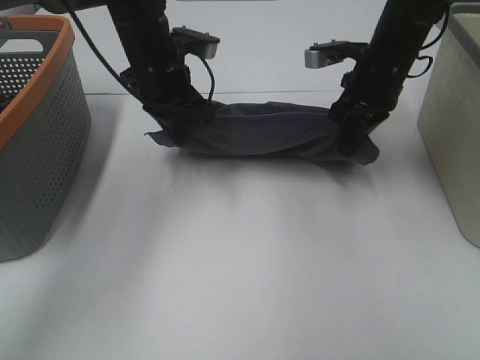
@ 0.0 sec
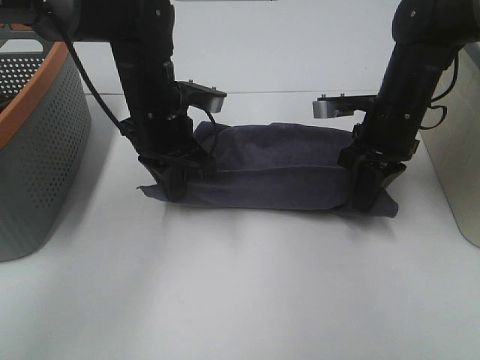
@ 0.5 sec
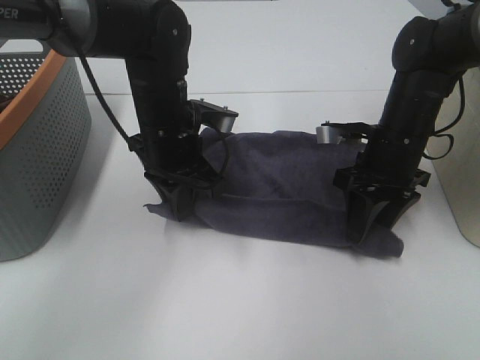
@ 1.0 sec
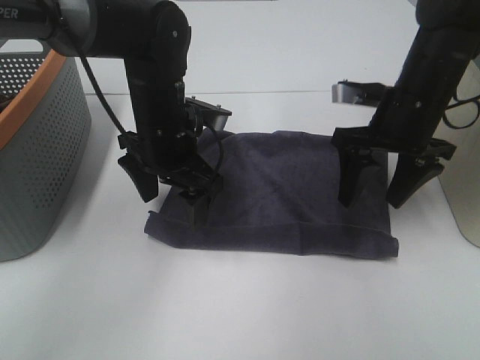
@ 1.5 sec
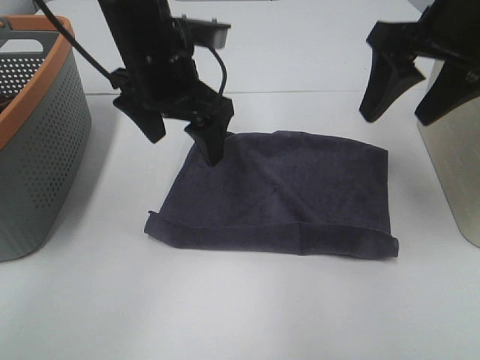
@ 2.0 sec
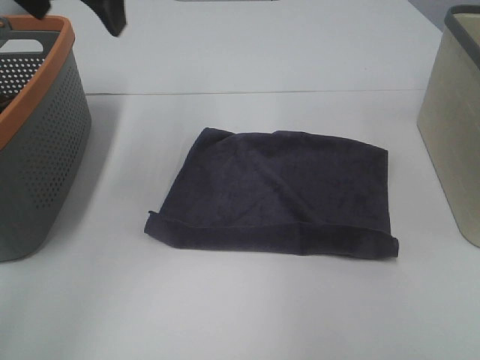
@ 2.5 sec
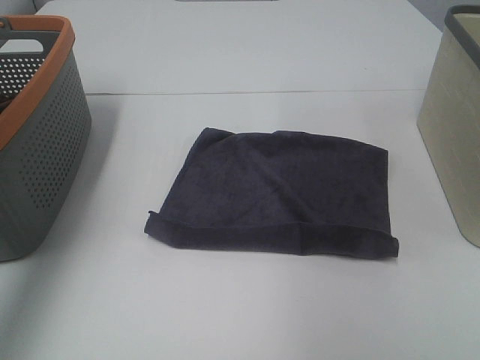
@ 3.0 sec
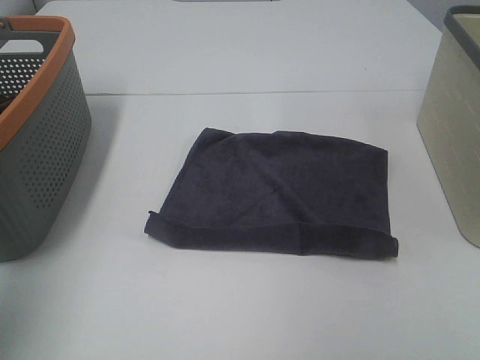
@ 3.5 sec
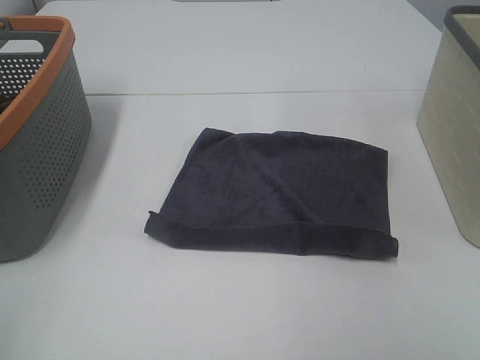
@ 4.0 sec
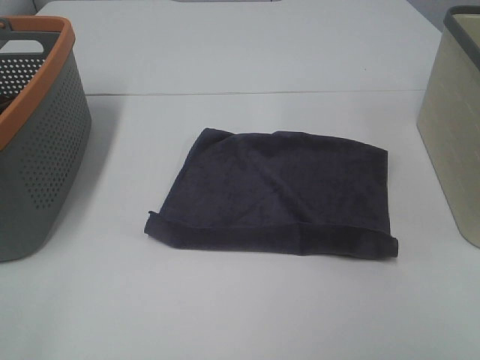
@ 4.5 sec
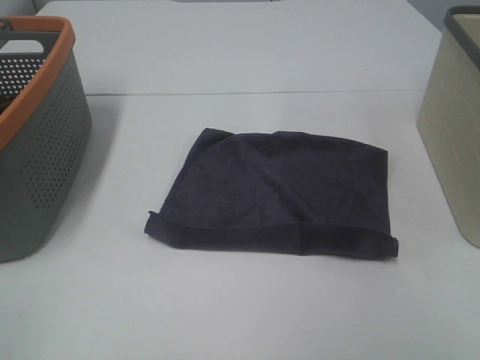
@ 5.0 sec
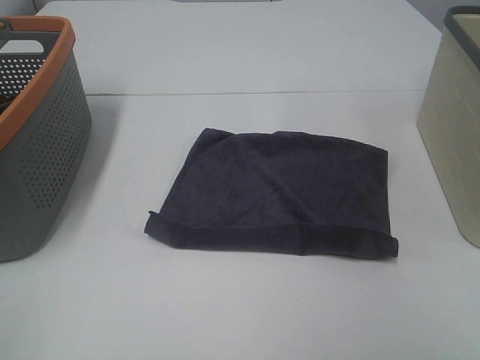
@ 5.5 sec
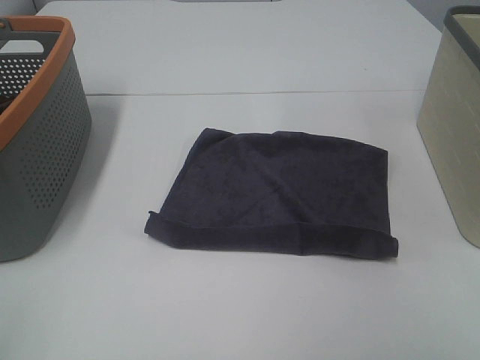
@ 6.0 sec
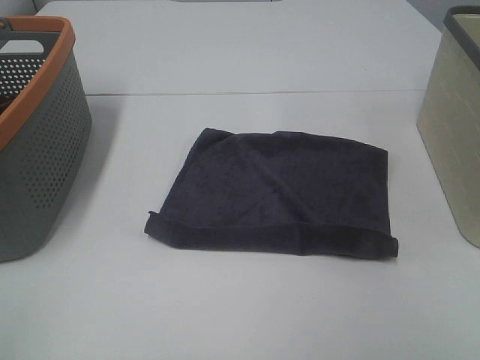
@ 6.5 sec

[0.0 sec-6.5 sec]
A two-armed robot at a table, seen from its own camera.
Task of the whole recording: Remove the towel and place it.
0.0 sec to 2.0 sec: The right gripper moves upward and backward, roughly 15 cm, and opens its fingers; the left gripper moves backward, some 10 cm, and opens up.
2.0 sec to 4.5 sec: The right gripper is displaced backward by about 35 cm, while the left gripper goes about 40 cm backward and to the left.

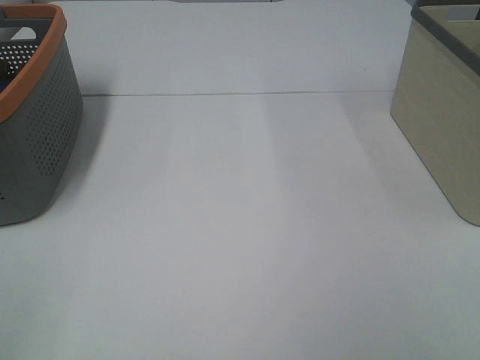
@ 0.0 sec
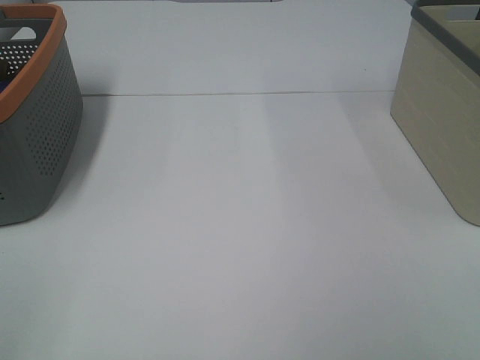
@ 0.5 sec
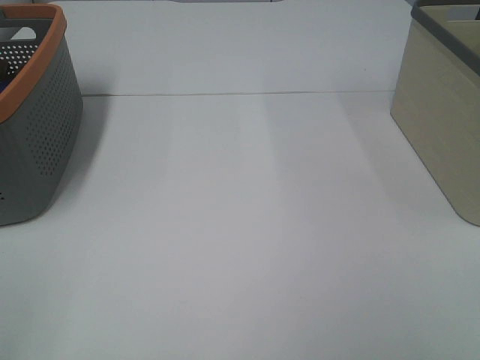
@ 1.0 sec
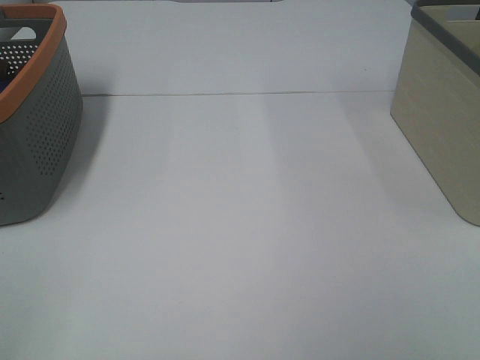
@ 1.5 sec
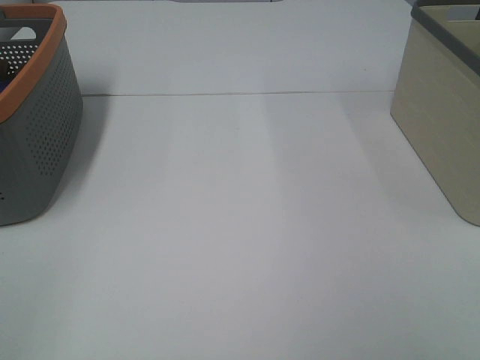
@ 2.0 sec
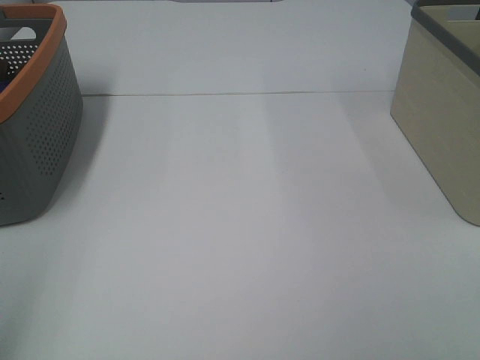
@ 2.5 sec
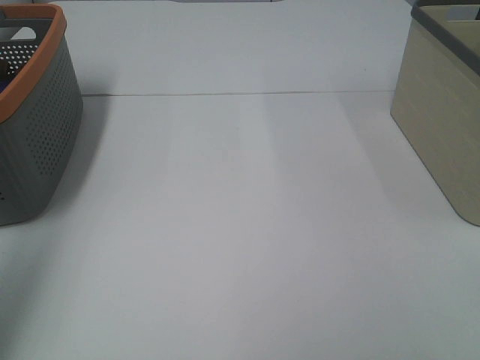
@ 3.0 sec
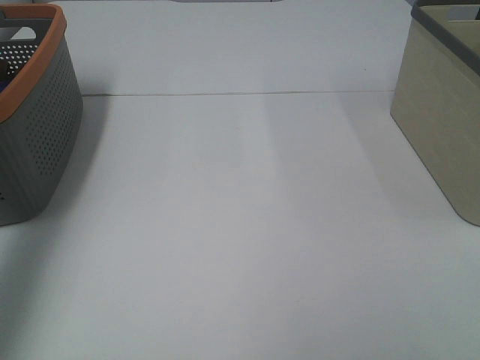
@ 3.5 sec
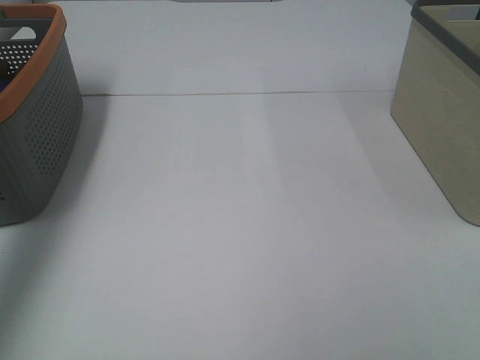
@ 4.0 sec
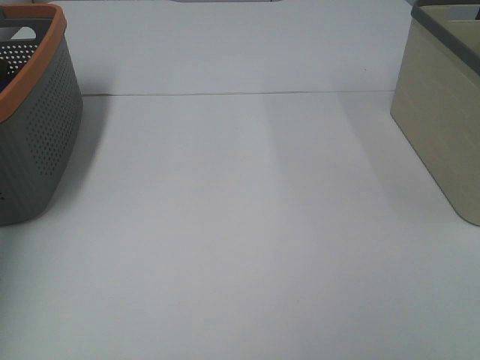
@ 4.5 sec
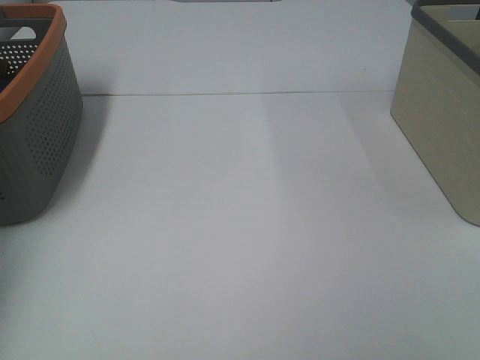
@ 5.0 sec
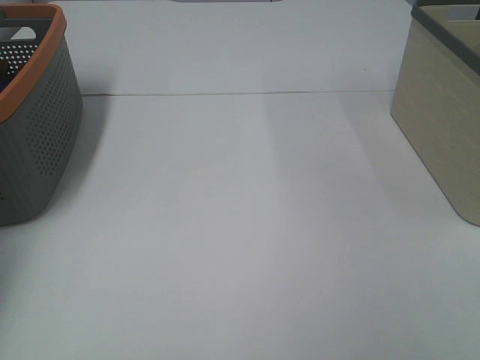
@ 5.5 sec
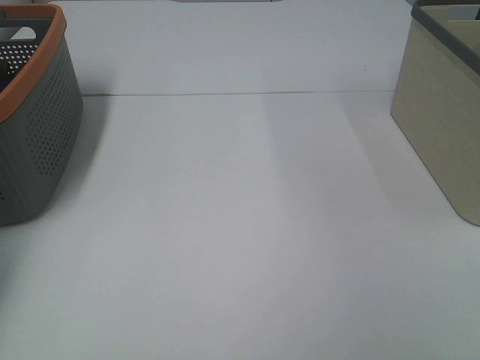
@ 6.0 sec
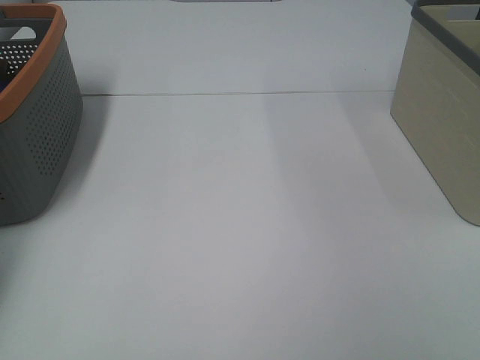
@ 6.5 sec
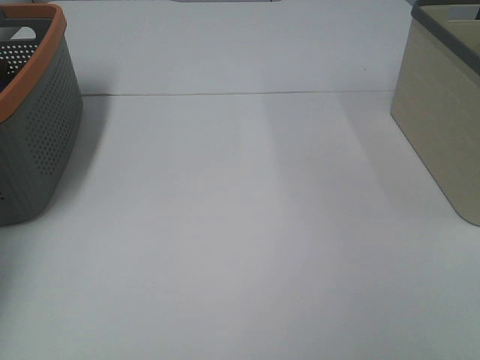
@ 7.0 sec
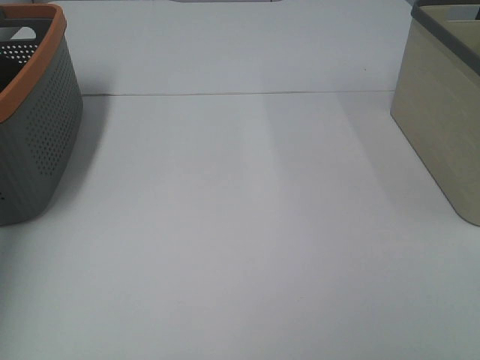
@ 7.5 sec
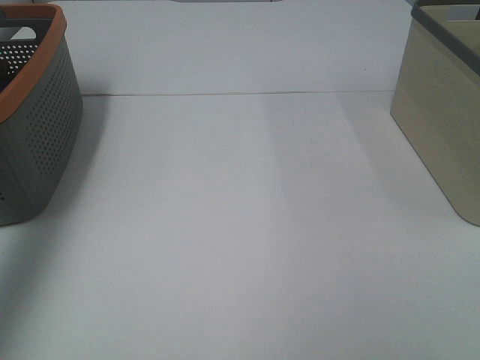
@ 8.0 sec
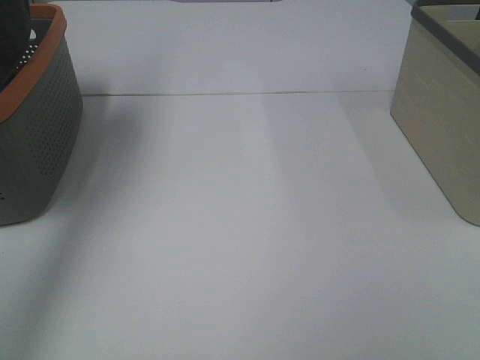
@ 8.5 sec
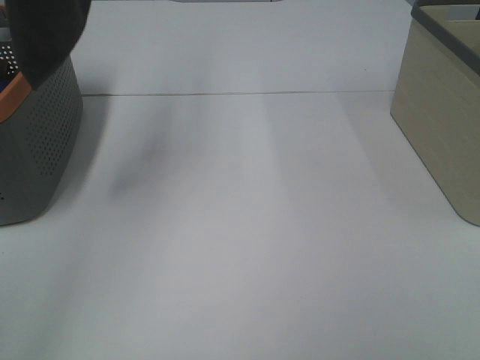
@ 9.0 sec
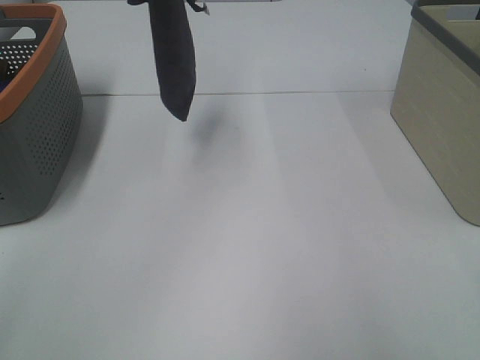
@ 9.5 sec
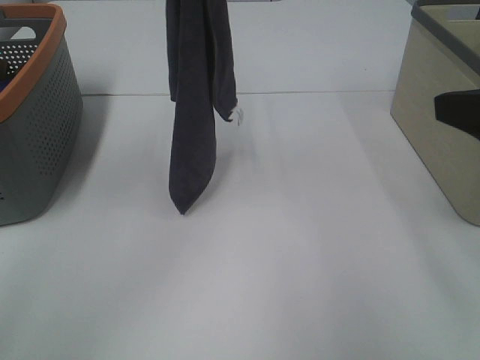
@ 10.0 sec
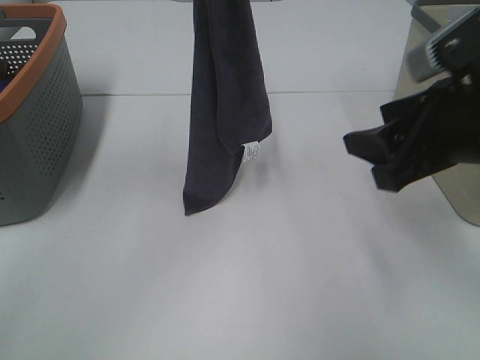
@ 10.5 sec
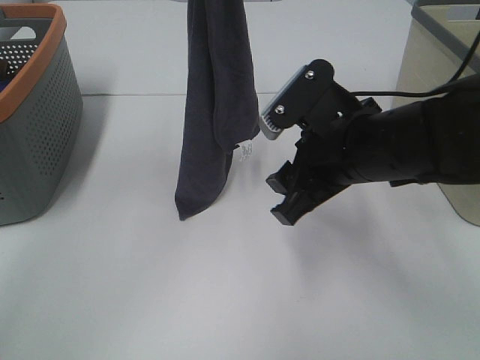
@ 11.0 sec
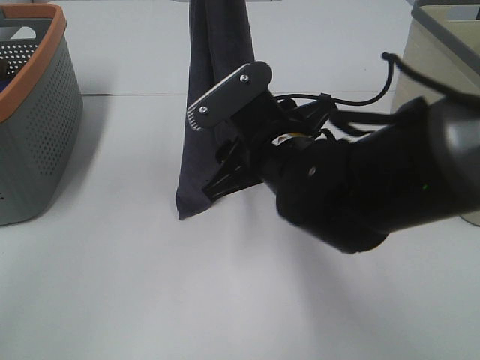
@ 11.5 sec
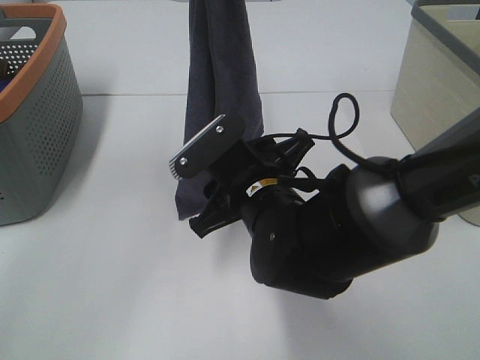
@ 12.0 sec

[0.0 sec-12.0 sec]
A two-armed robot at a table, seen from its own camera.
Task of the whole recording: Remove the towel and place it.
2.0 sec to 4.0 sec: The left gripper moves forward, roughly 35 cm.
4.0 sec to 6.0 sec: The left gripper shifts roughly 20 cm downward, forward and to the left.
6.0 sec to 8.0 sec: The left gripper heads upward, covering approximately 30 cm, and closes up.
8.0 sec to 10.0 sec: The left gripper goes approximately 25 cm to the right. The right gripper goes about 15 cm forward.
10.0 sec to 12.0 sec: The right gripper is displaced to the left and downward by approximately 30 cm.

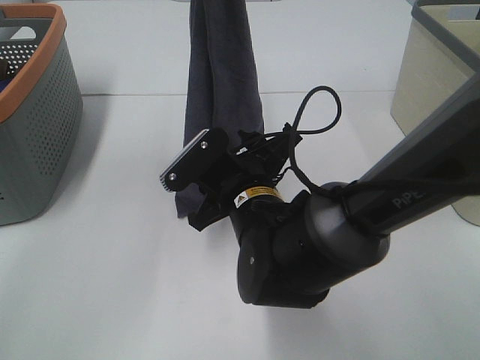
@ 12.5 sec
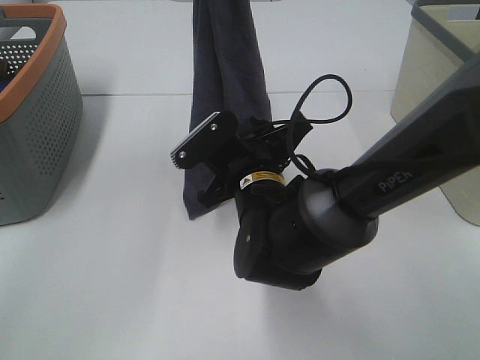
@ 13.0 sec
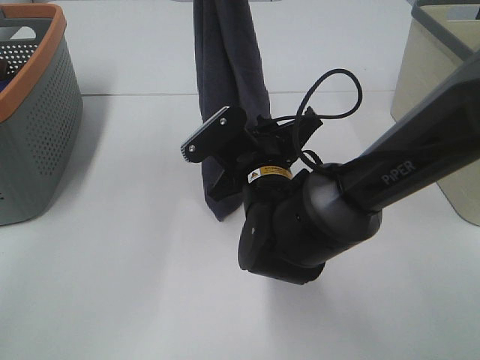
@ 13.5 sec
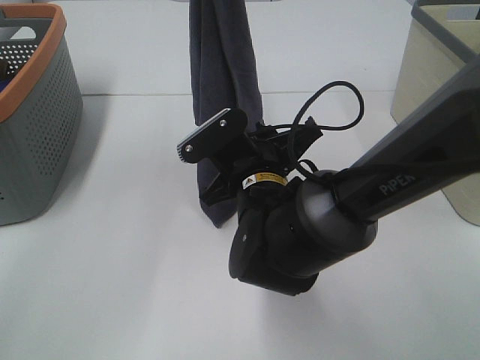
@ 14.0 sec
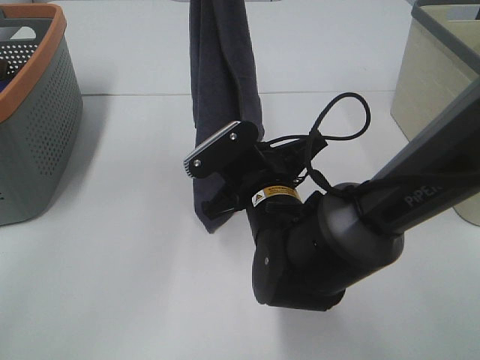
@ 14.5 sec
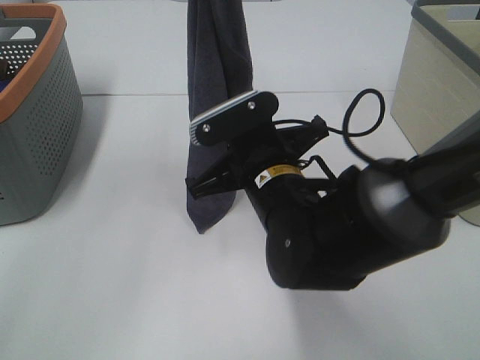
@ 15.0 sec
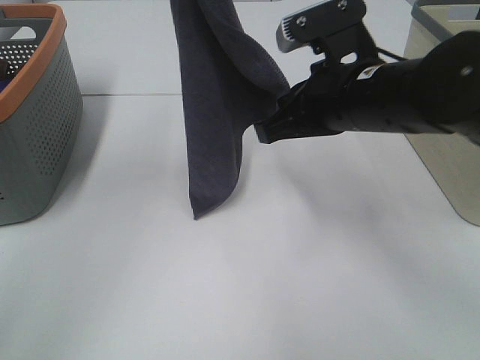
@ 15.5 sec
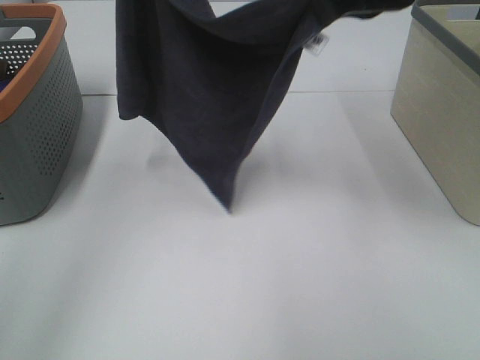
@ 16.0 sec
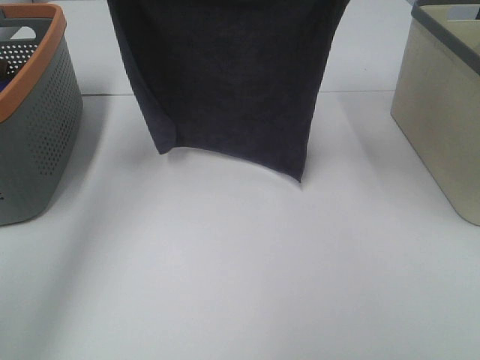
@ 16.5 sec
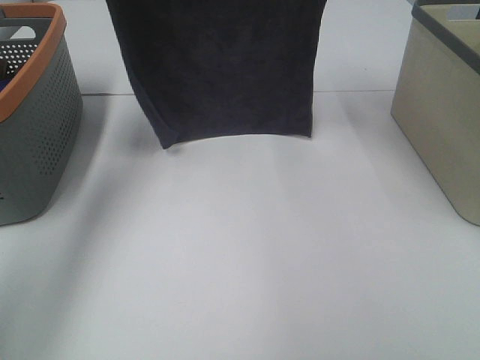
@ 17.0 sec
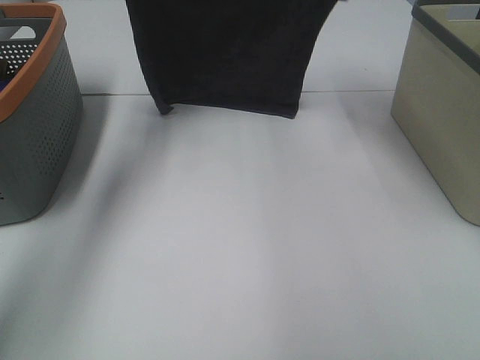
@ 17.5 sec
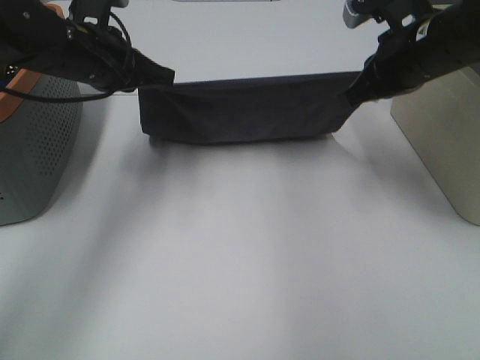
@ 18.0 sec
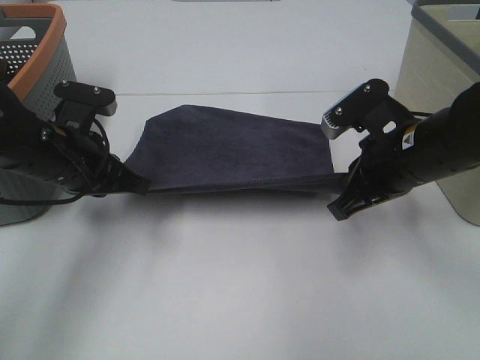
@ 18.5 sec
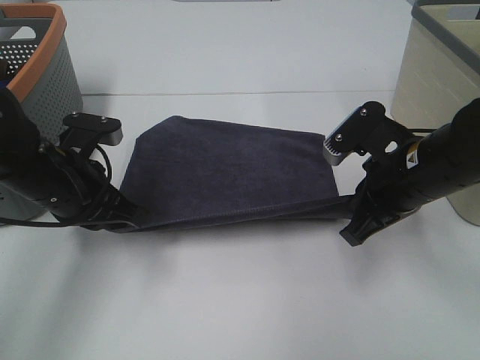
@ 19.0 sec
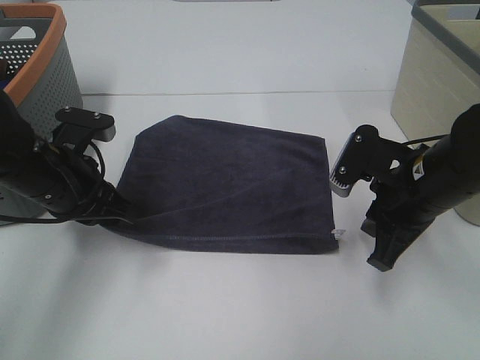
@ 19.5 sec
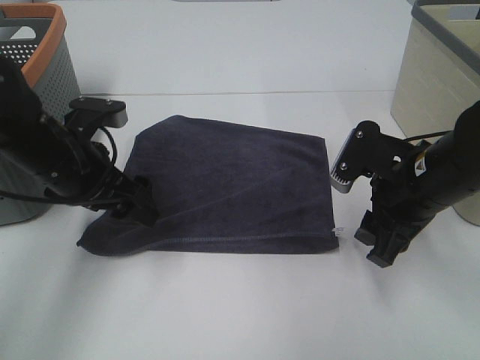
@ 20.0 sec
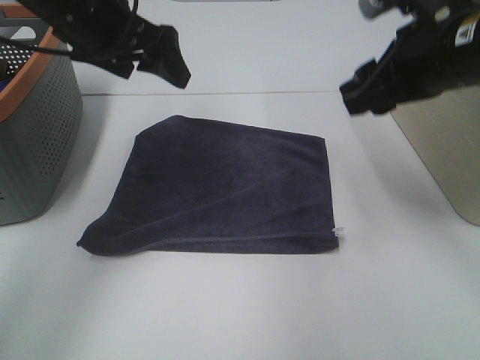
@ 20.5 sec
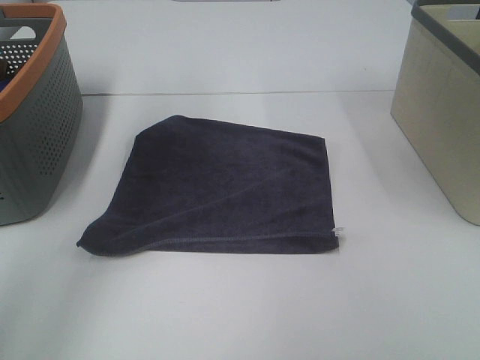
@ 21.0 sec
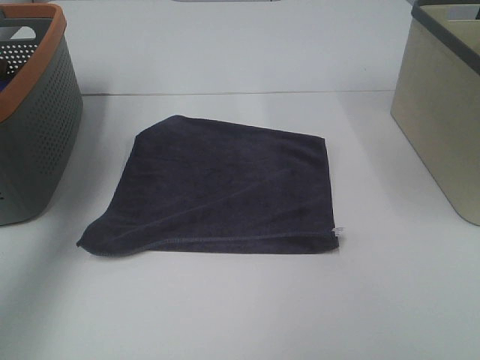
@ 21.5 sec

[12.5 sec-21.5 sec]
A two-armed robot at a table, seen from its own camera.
Task of the whole recording: Remove the towel and place it.
Step, 14.0 sec to 15.5 sec: Right hand: spread the grey towel flat on the table.
Step, 14.0 sec to 16.0 sec: Left hand: spread the grey towel flat on the table.
12.5 sec to 14.5 sec: The right gripper closes its fingers.
14.5 sec to 17.0 sec: The right gripper travels upward, forward and to the right by roughly 35 cm. Meanwhile the left gripper is displaced to the left, downward and forward by roughly 15 cm.
17.0 sec to 19.5 sec: The grippers both shift downward and backward by some 25 cm.
19.5 sec to 21.5 sec: Both grippers travel together upward, about 30 cm. The right gripper opens up; the left gripper opens up.
